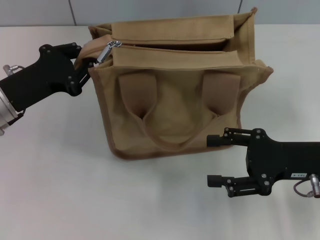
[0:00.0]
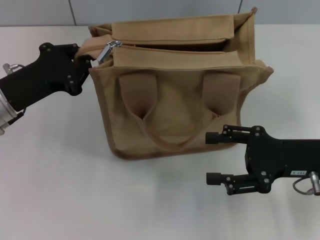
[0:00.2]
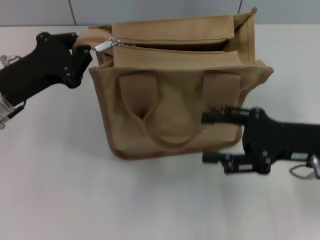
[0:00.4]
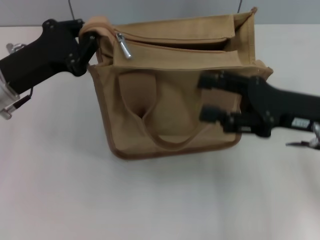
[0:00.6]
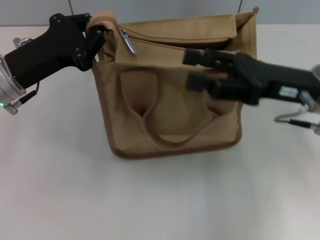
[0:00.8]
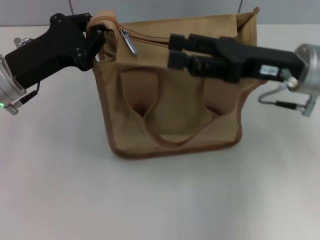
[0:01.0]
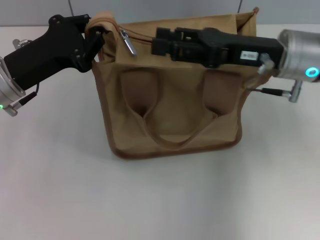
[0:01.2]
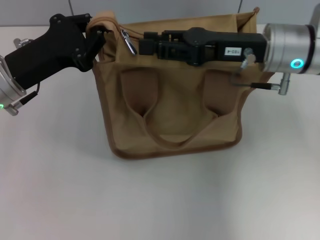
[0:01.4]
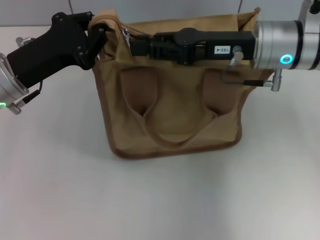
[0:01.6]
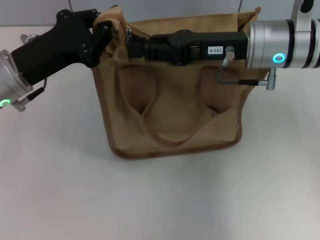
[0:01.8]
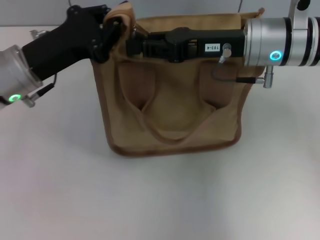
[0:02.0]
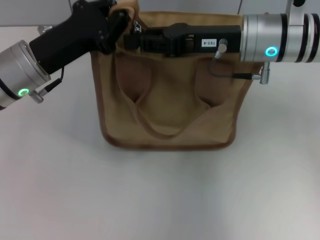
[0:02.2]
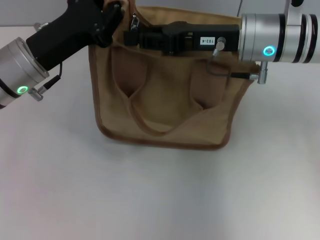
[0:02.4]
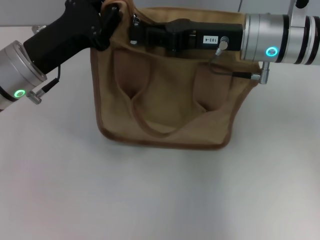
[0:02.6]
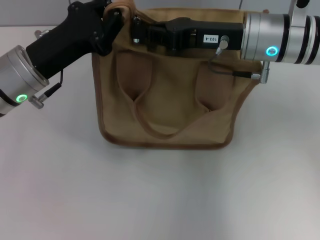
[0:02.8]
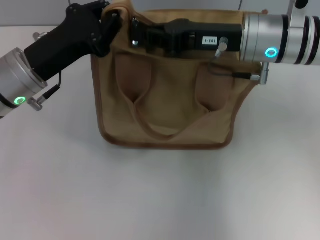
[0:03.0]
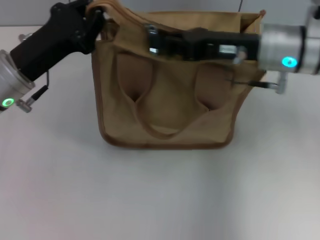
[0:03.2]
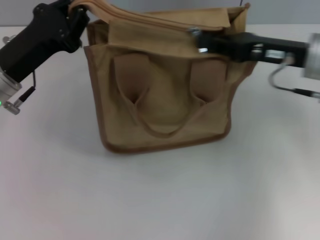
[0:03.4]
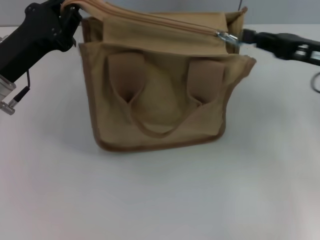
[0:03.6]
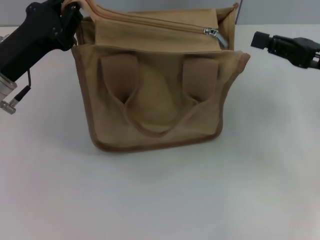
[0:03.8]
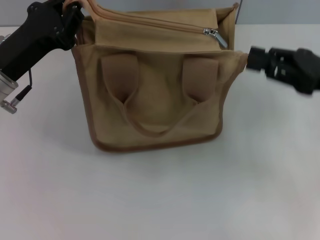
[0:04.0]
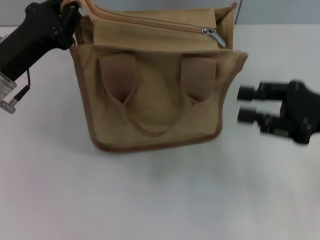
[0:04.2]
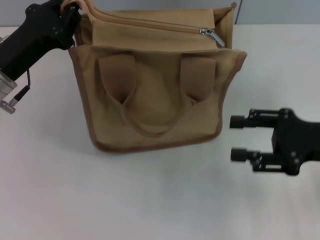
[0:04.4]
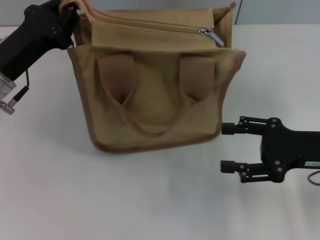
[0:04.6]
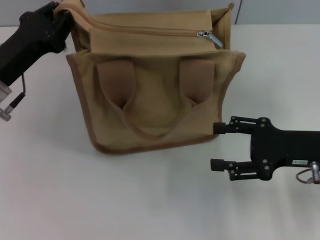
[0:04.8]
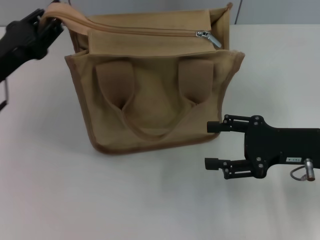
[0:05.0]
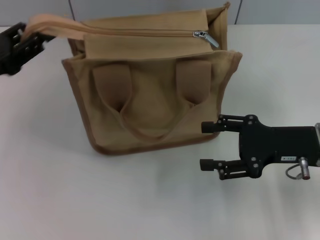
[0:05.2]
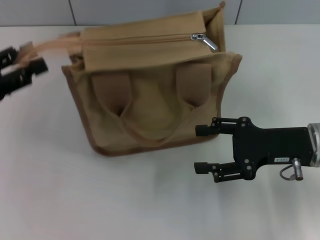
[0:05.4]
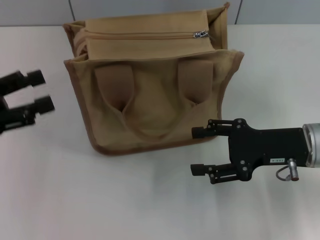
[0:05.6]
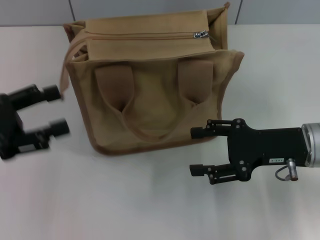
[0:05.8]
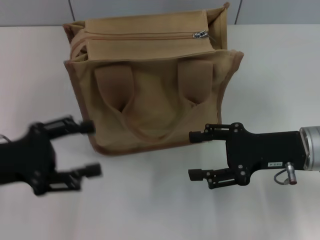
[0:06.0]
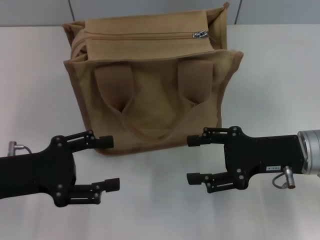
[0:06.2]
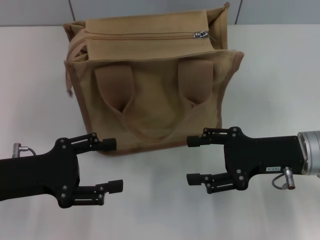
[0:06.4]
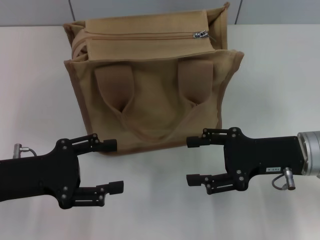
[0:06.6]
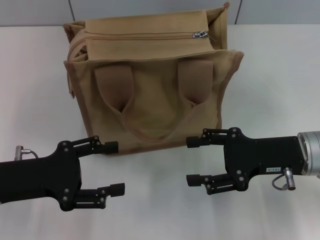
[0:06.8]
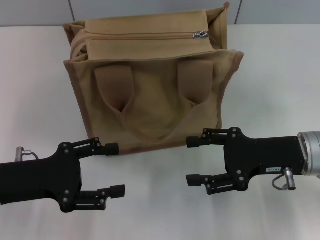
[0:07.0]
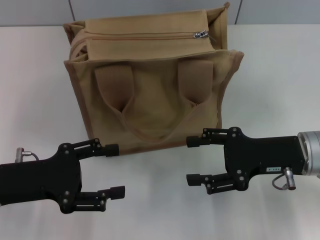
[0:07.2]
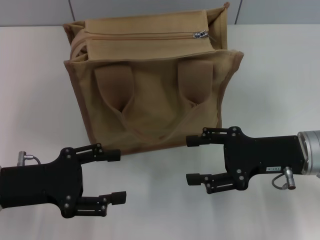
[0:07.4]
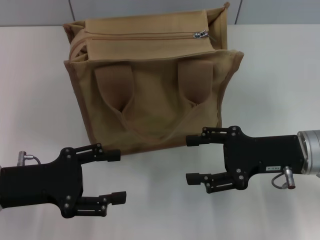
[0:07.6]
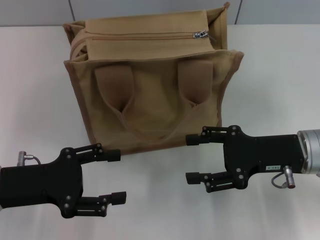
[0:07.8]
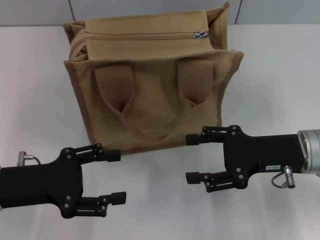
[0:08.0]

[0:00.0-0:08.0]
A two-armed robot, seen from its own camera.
Step, 0:00.0 to 0:03.4: Pull up the zipper with your right hand.
Step, 0:03.8 to 0:05.4: Grab the zipper with your left hand.
0:00.0 to 0:01.6: The right gripper moves forward, to the left and upward, approximately 15 cm, and closes.
0:01.6 to 0:03.2: The right gripper closes up.
0:03.2 to 0:04.8: The right gripper is displaced backward, to the right and downward by approximately 15 cm, and opens.
0:04.8 to 0:06.4: The left gripper shifts approximately 10 cm backward, goes to the left and returns, approximately 10 cm each way, and opens its fingers.
0:06.4 to 0:08.0: Neither gripper changes place.
